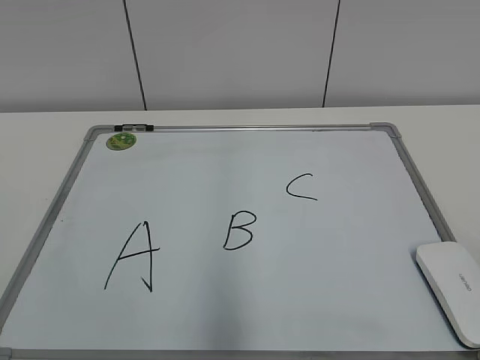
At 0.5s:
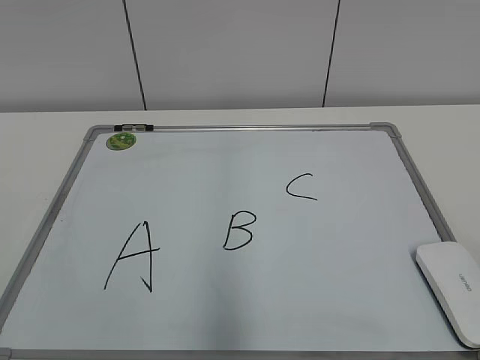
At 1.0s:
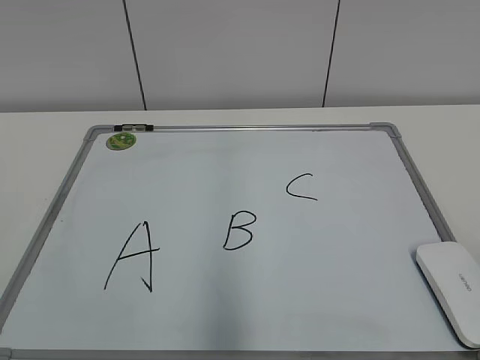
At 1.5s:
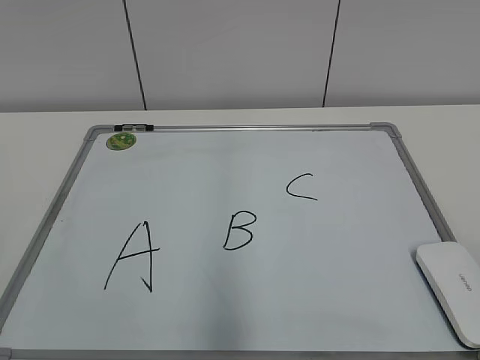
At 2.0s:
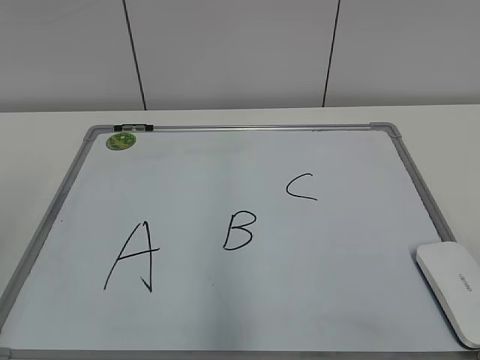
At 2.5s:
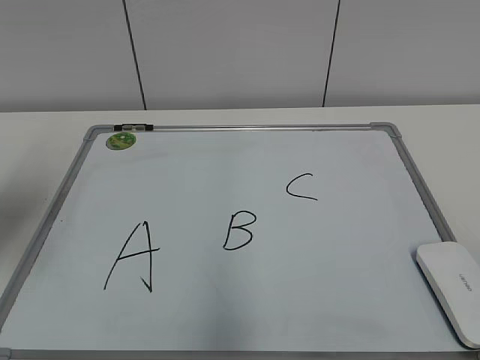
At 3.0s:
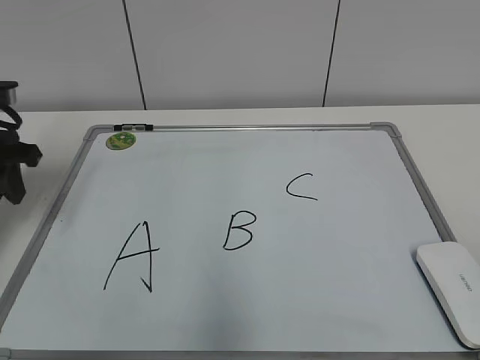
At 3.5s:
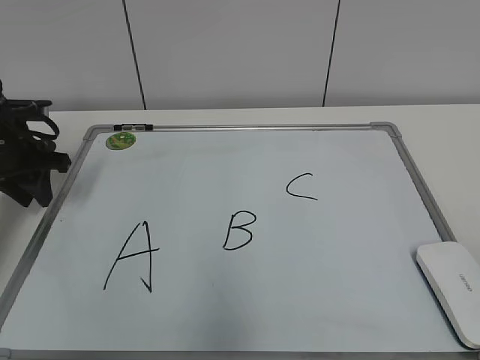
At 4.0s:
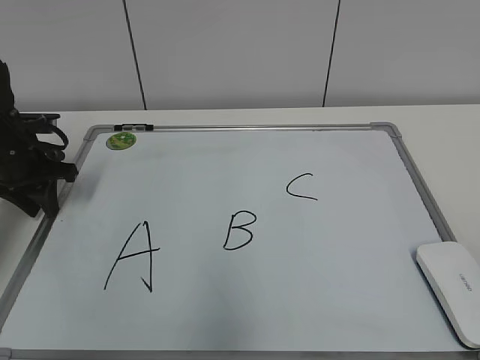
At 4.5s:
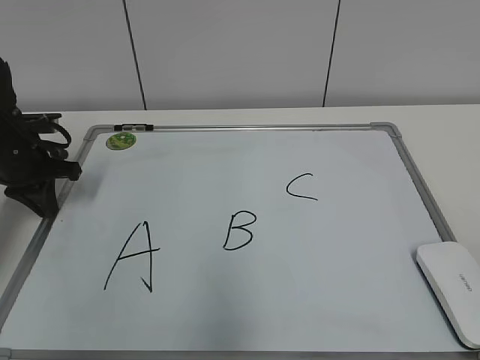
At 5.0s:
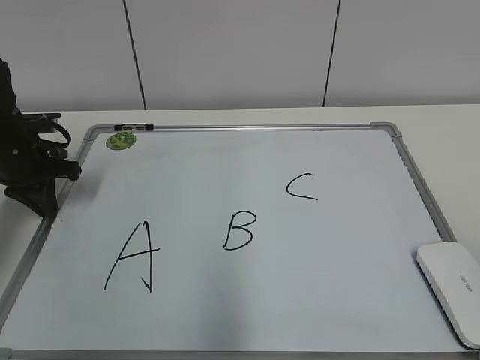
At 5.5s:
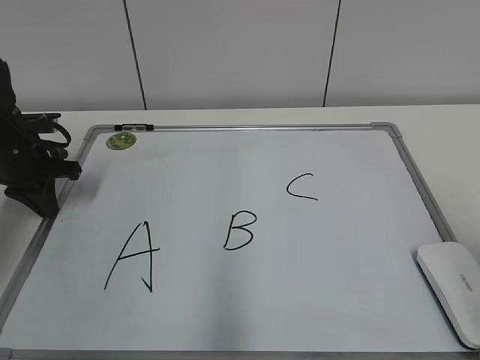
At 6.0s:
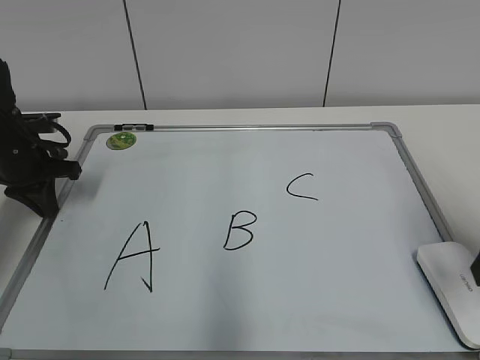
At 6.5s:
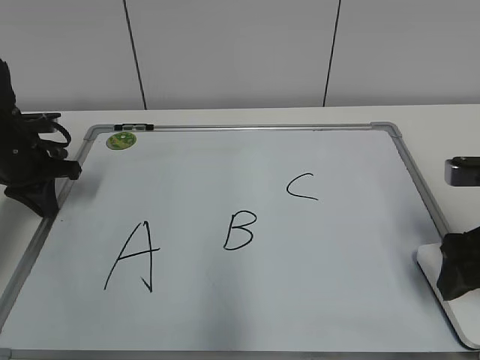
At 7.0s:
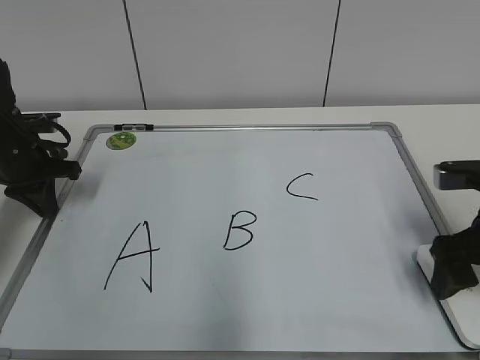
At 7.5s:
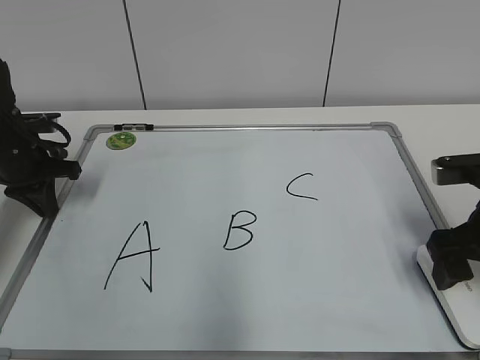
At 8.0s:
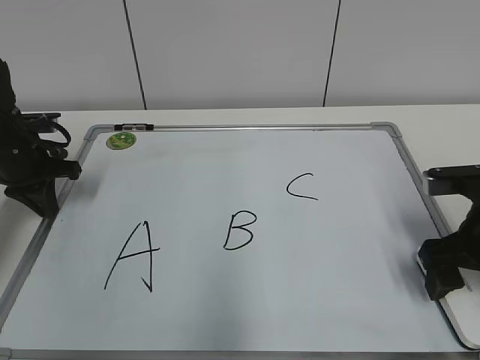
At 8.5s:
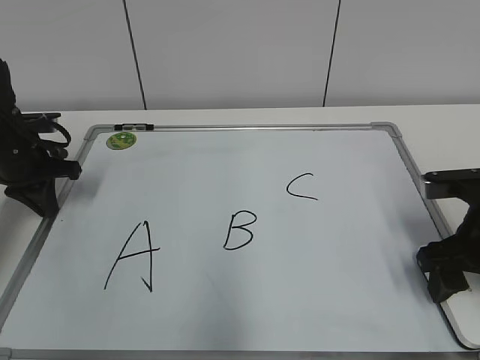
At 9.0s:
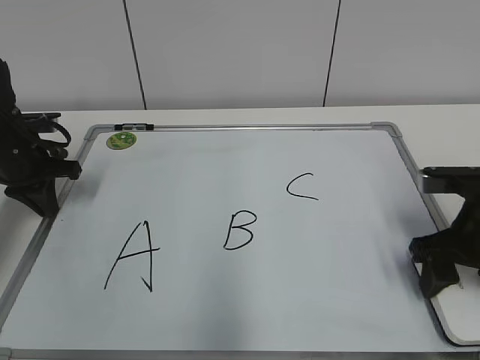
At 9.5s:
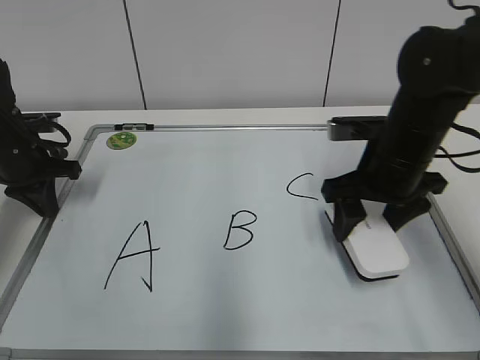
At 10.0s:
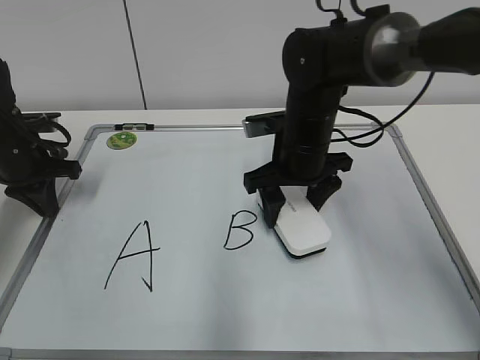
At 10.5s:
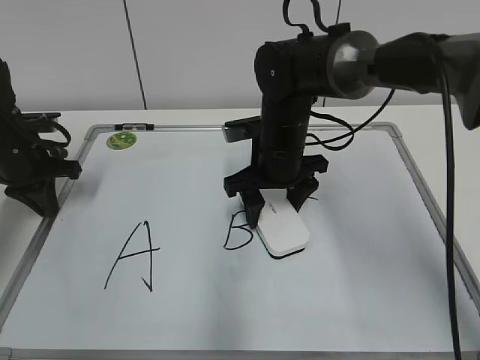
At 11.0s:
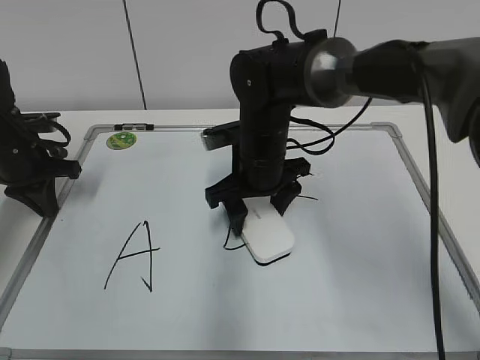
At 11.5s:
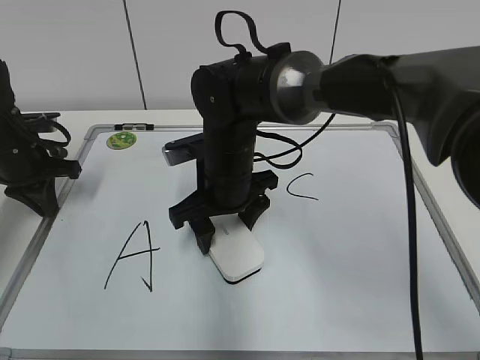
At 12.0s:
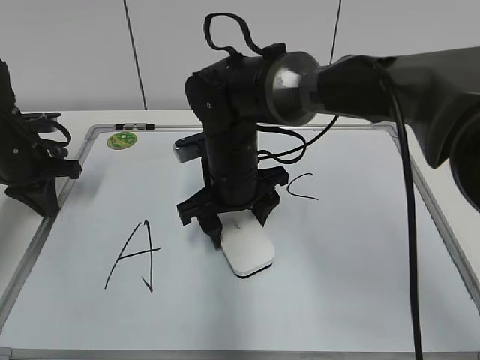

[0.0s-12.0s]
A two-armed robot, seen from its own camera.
Task of the whole recording: pick up the eraser on the blackboard and erase the letter "B".
Step, 0.0s to 4.0s: Hold the drawing board steady with your left hand.
Step, 4.5s to 8.5s: Grab the eraser with your right hand.
2.0s to 4.0s: The left gripper travels forward and downward by approximately 35 cm.
4.0s to 6.0s: The left gripper closes. The right gripper goes some 20 cm forward, and opens.
6.0s to 8.0s: The right gripper shifts approximately 10 cm downward and forward, and opens.
8.0s to 10.0s: The right gripper heads to the left and forward, covering about 20 cm, and closes its fingers.
10.0s to 12.0s: The right gripper heads to the left, covering about 10 cm.

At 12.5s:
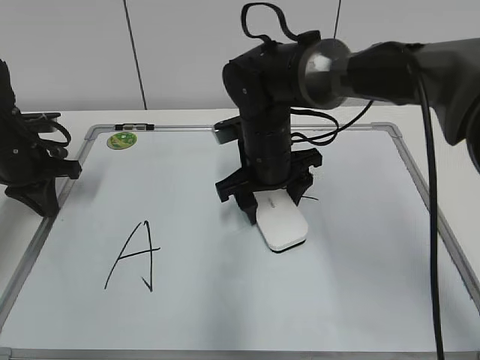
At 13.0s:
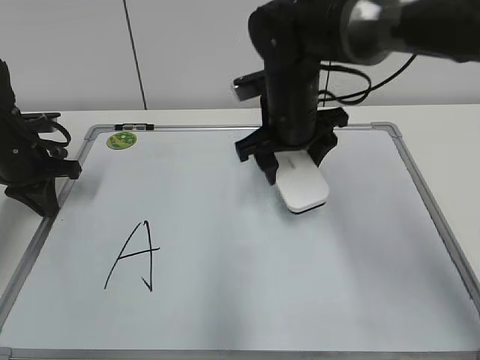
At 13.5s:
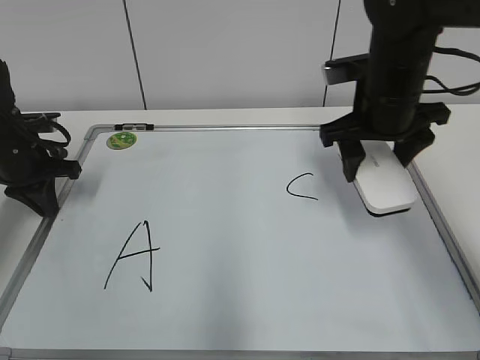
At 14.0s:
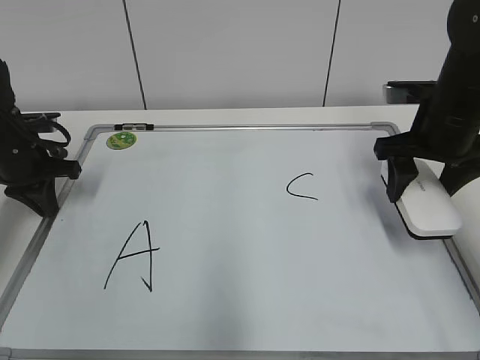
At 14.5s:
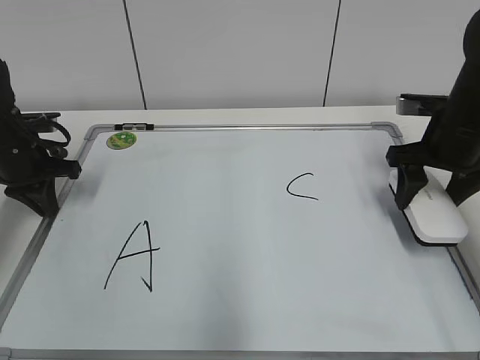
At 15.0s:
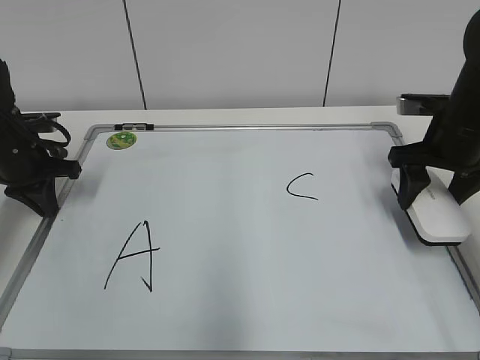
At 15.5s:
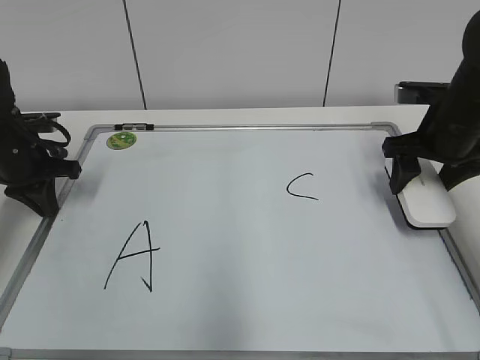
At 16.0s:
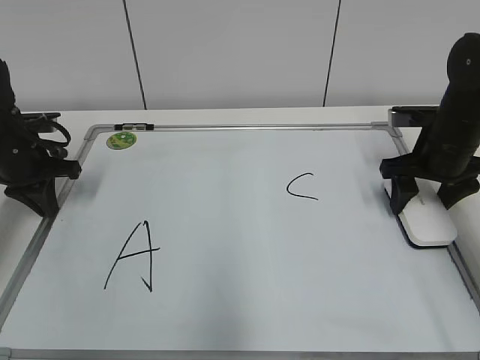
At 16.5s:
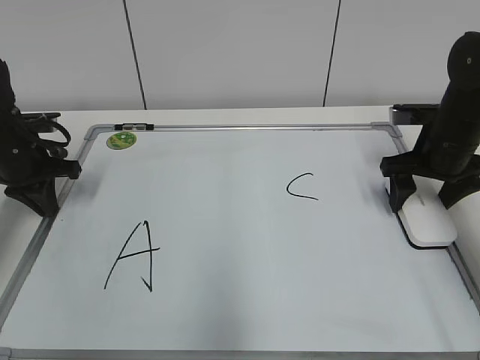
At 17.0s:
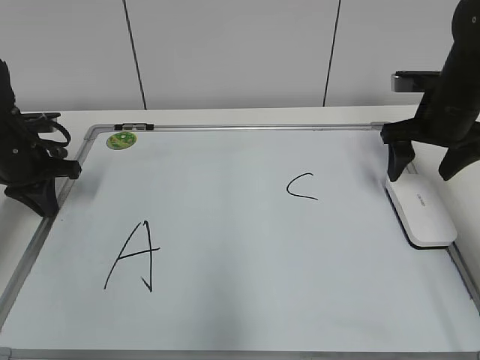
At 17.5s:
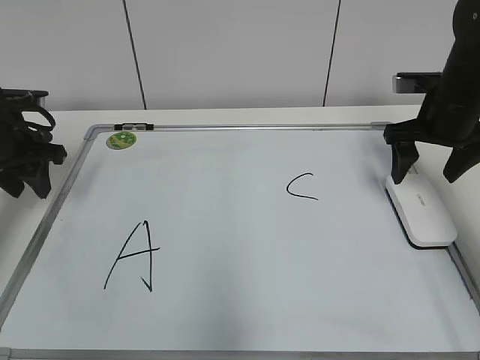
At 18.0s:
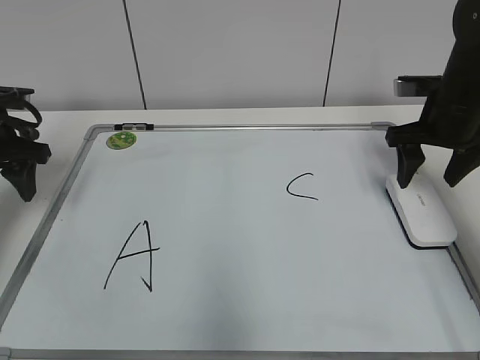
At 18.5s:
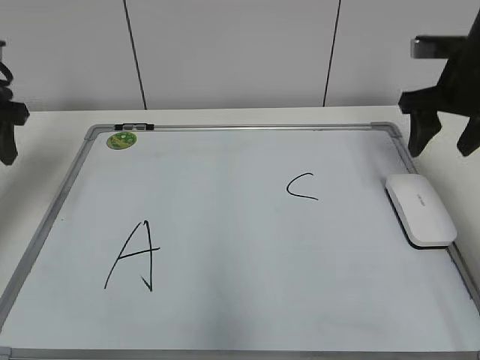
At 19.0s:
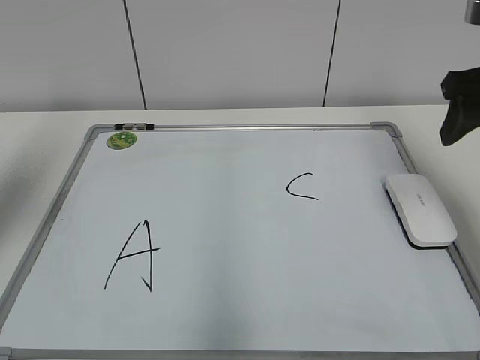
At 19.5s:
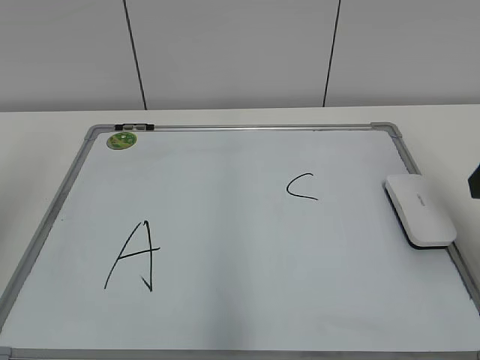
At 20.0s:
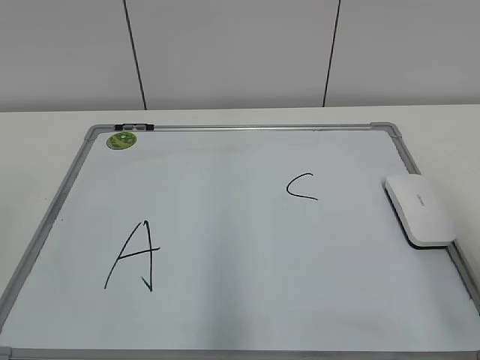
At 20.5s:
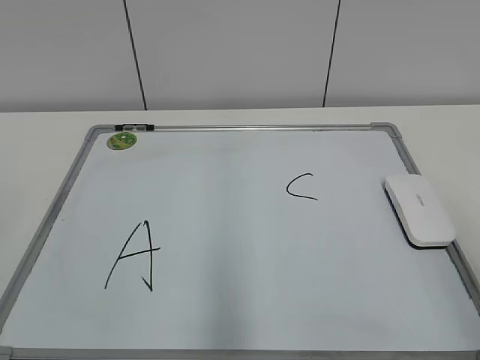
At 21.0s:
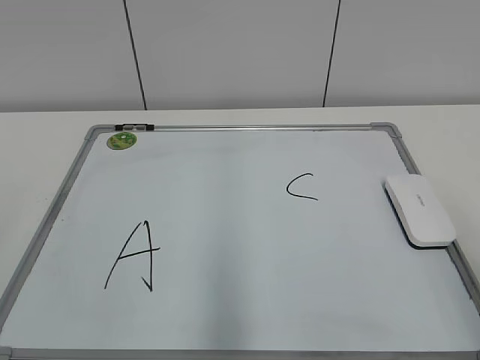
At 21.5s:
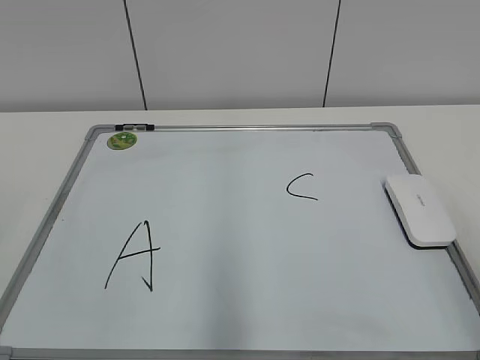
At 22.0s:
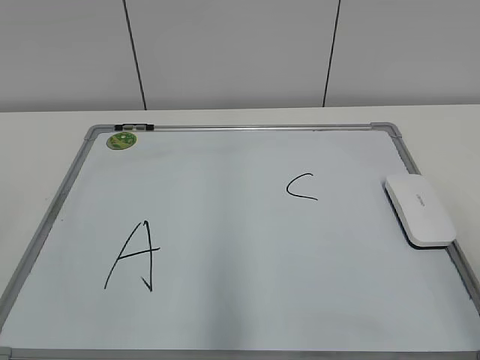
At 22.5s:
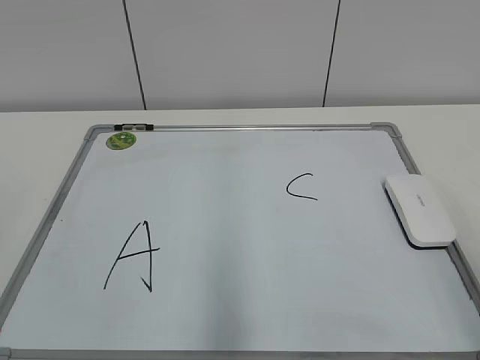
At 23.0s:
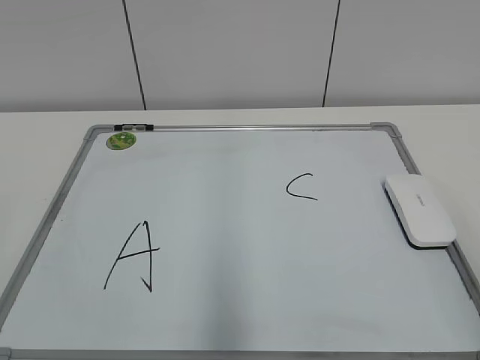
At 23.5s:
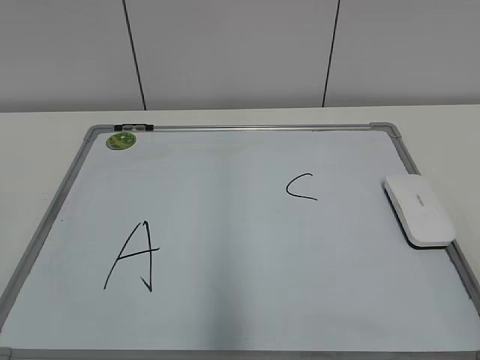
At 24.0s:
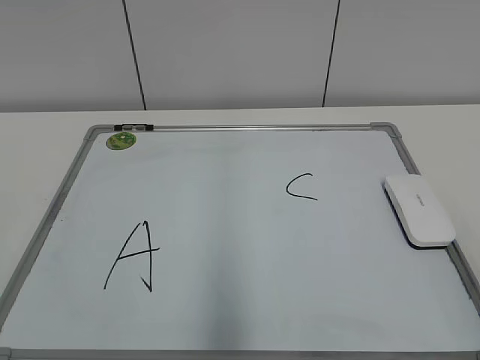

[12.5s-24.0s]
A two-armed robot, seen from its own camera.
Task of the whole recording: pick up the eraser on the blackboard and erase the letter "B".
Step, 13.0s to 16.0s: Put down the eraser with your right hand.
12.5s to 14.5s: The right gripper moves to the right, about 20 cm.
14.5s to 16.5s: The right gripper opens its fingers.
16.5s to 18.5s: The grippers both shift upward by roughly 10 cm. The left gripper opens its fingers. Meanwhile the right gripper opens, then closes once more.
18.5s to 20.0s: The grippers both shift backward by about 25 cm.

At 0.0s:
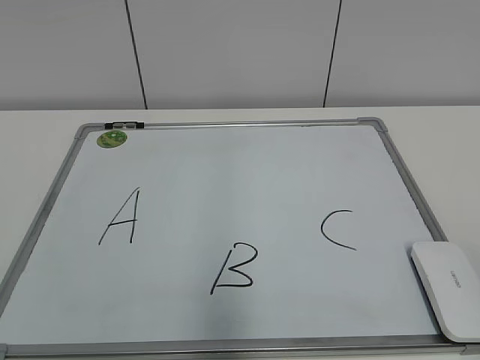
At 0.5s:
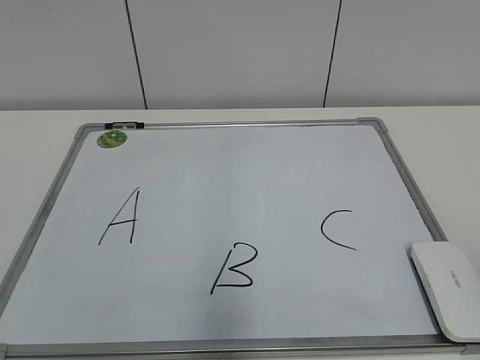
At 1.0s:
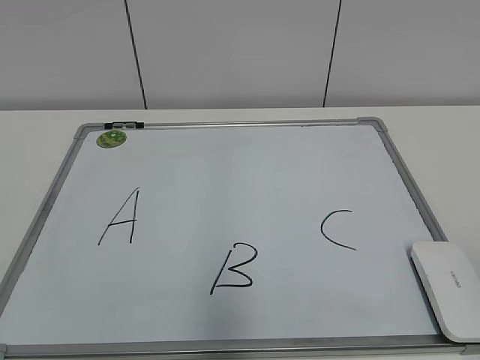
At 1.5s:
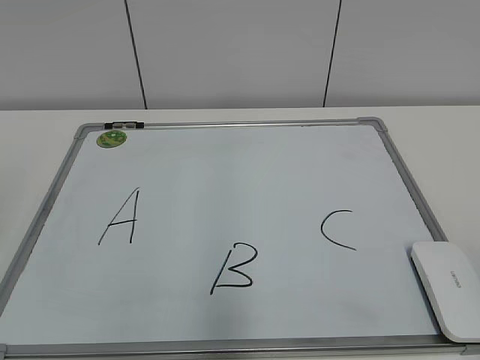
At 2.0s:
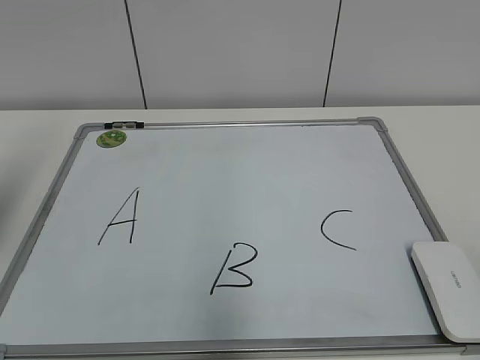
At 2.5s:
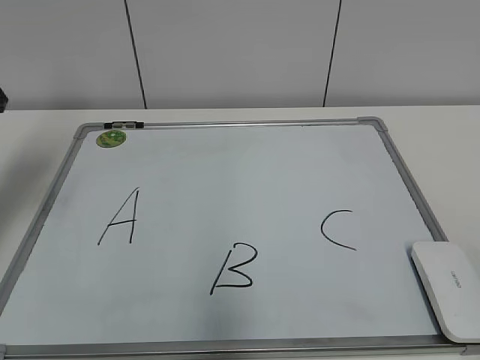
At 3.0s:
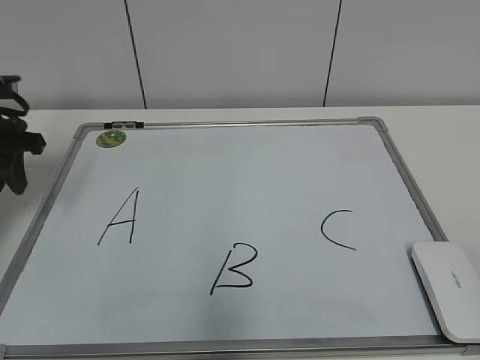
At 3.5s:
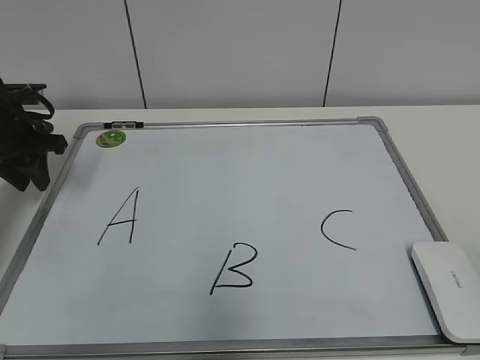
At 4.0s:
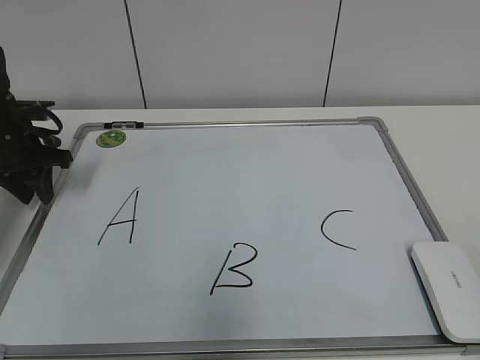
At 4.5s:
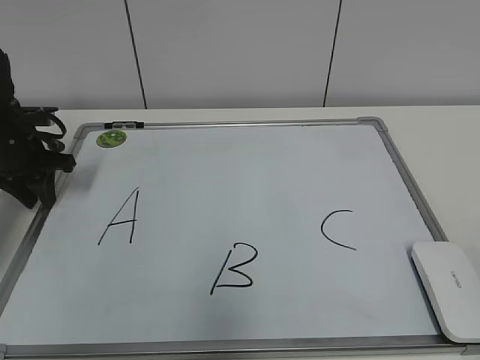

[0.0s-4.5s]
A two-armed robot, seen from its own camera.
Task of the whole recording: pick up the eraser on the blackboard and erase the letter "B".
2.0s to 4.5s: The left gripper shifts about 25 cm forward and downward.
